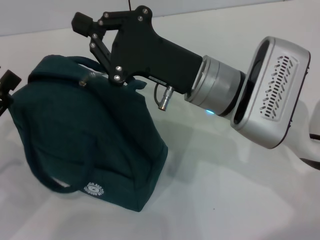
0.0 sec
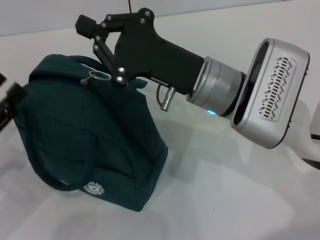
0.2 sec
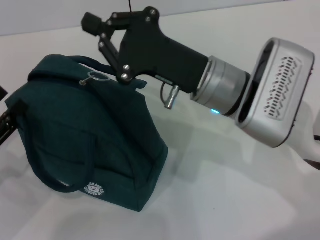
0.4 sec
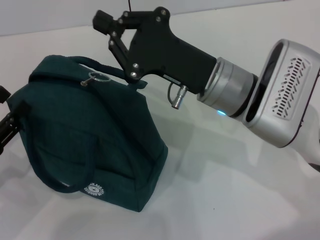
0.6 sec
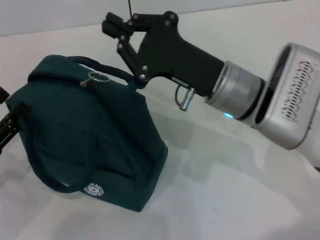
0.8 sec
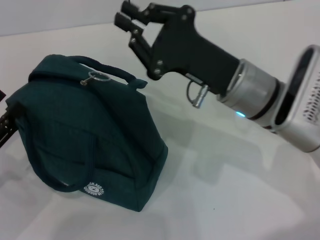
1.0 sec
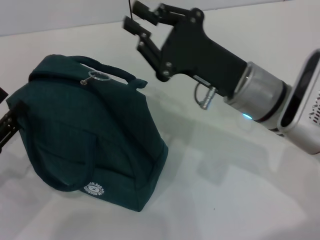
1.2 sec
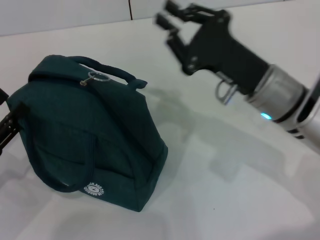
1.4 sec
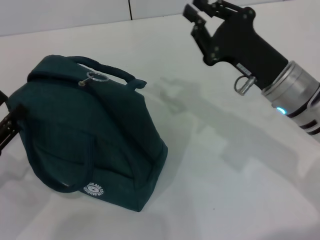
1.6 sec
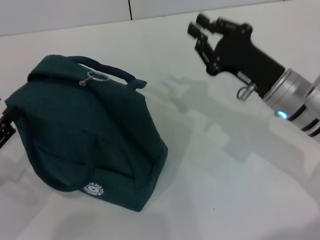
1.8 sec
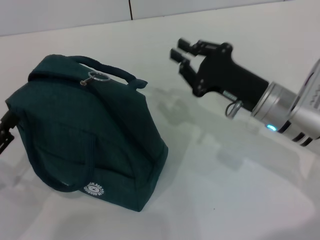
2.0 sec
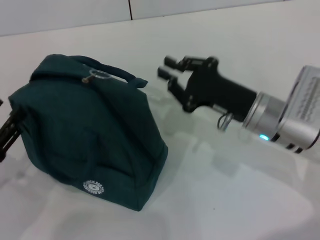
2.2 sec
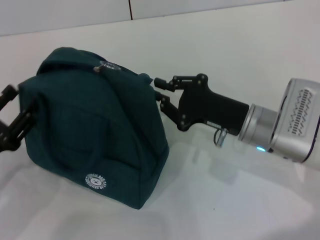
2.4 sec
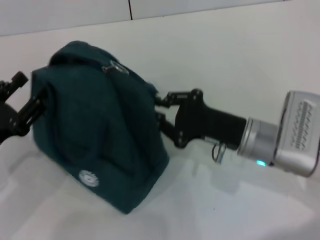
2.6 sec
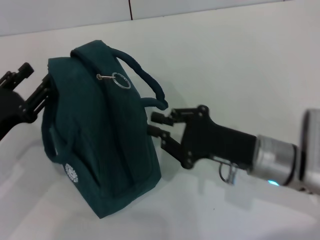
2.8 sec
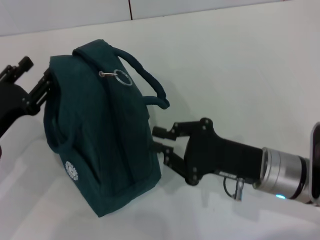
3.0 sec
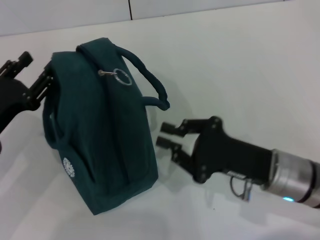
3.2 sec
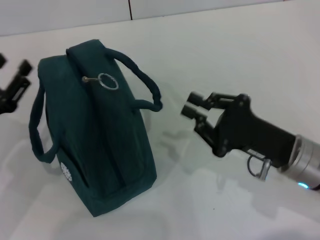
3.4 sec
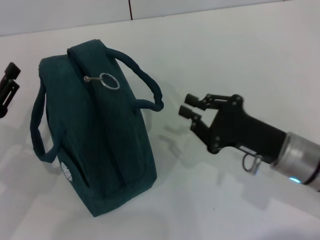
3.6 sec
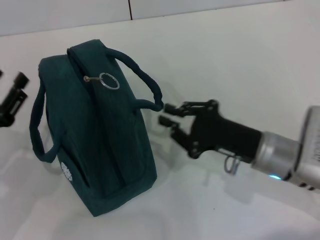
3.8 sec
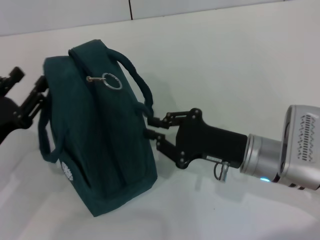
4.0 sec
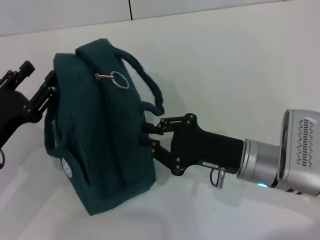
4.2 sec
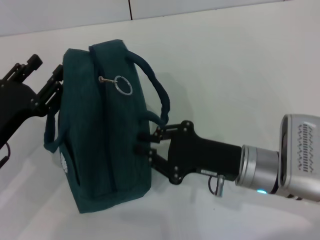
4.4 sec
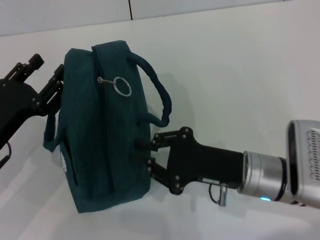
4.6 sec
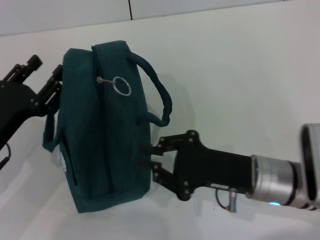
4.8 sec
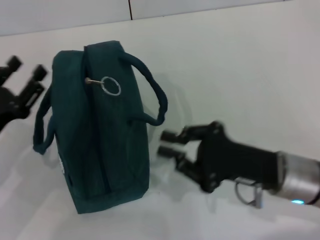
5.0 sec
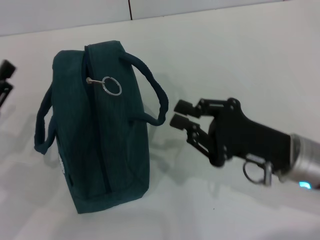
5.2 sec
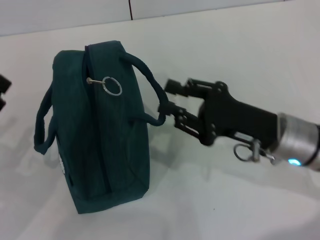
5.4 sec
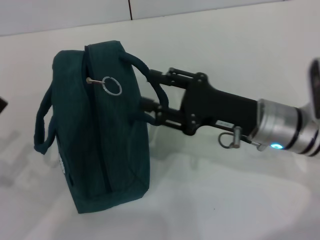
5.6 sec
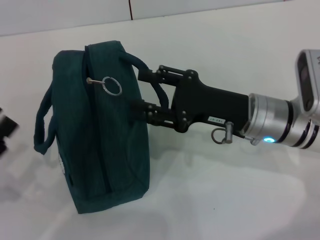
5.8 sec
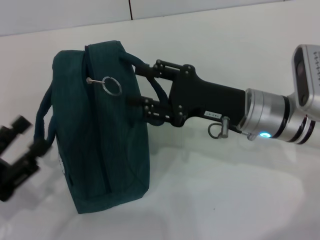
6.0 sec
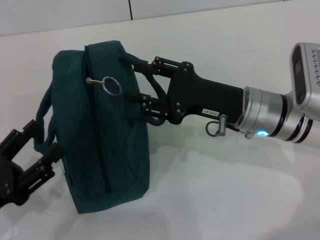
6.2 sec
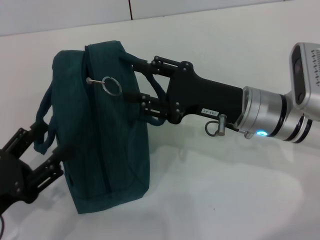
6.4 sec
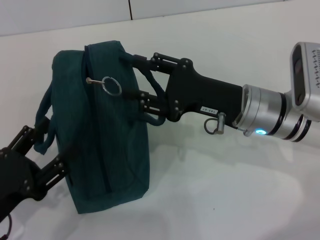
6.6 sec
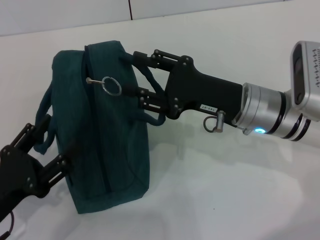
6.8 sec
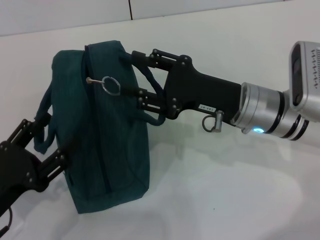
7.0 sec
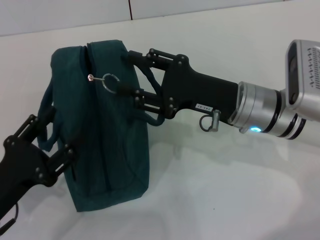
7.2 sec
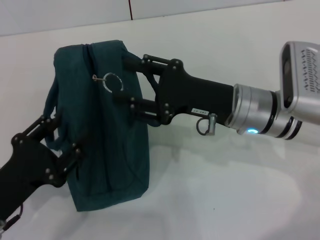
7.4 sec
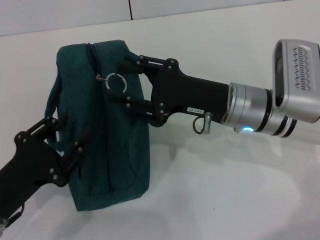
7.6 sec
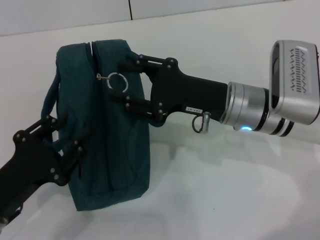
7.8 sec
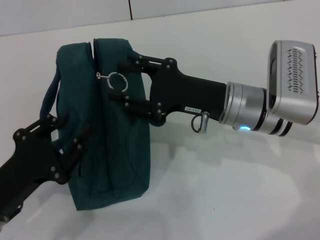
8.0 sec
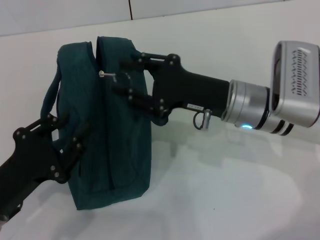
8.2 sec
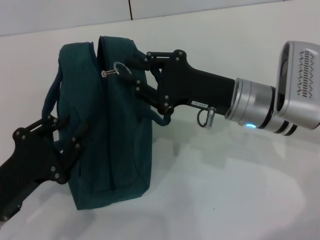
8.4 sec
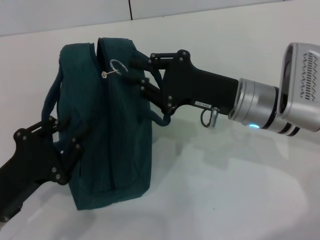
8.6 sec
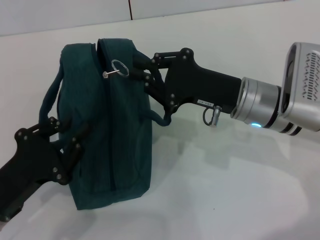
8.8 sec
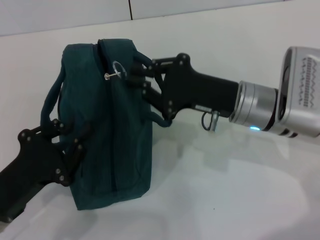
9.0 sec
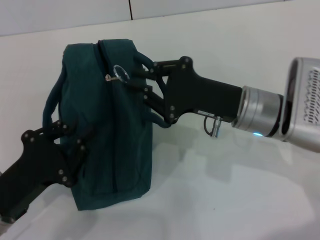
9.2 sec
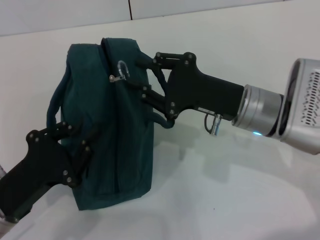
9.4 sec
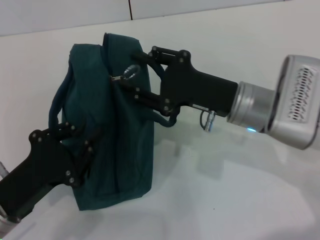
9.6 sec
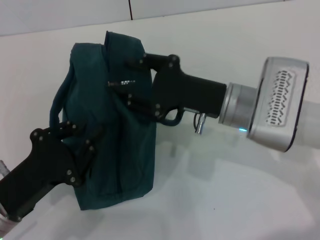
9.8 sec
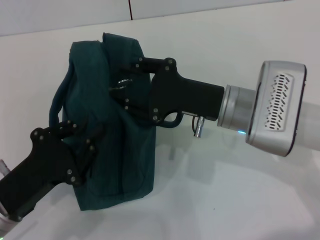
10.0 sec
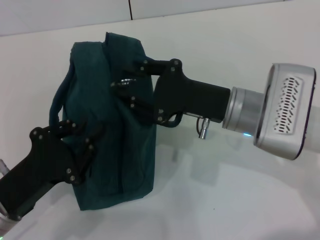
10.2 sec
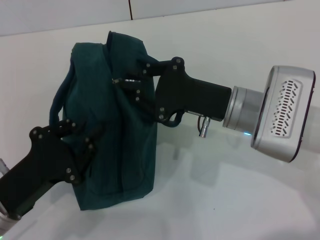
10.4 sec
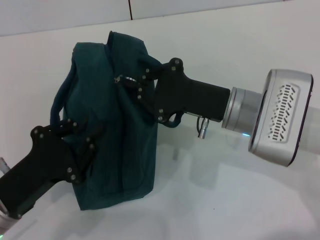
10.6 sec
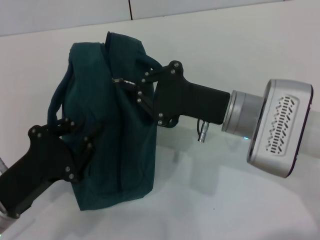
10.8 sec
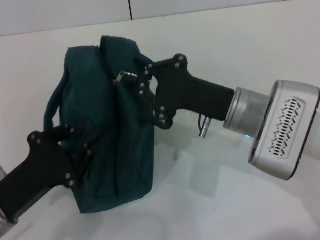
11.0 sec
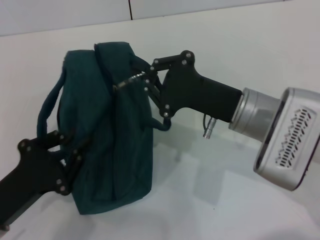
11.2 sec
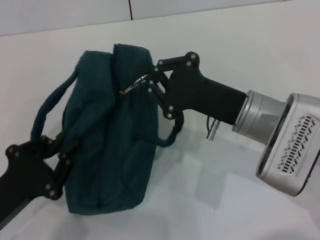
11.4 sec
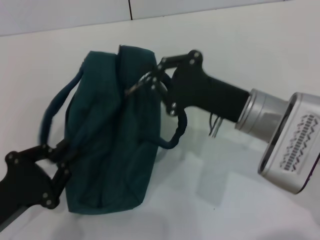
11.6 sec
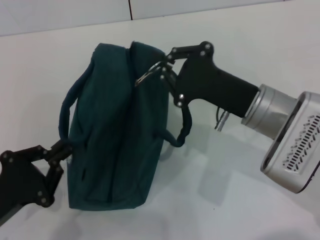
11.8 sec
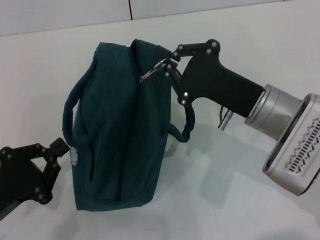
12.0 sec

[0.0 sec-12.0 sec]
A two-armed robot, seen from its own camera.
0.0 sec to 1.6 sec: The right gripper travels to the right by some 10 cm.
1.6 sec to 3.0 sec: The left gripper travels forward by some 5 cm. The right gripper is displaced backward and downward by some 10 cm.
3.0 sec to 4.4 sec: The grippers stay close to where they were, moving slightly.
4.4 sec to 6.0 sec: The right gripper travels forward by roughly 5 cm, and opens. The left gripper shifts roughly 10 cm backward.
6.0 sec to 7.6 sec: The left gripper changes place by roughly 5 cm.
7.6 sec to 9.0 sec: The left gripper closes its fingers, while the right gripper closes its fingers.
9.0 sec to 10.4 sec: The grippers make only small movements.
10.4 sec to 12.0 sec: The right gripper closes its fingers.

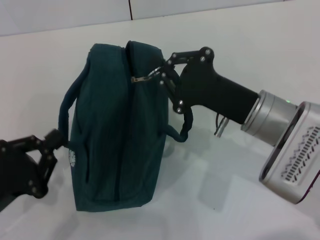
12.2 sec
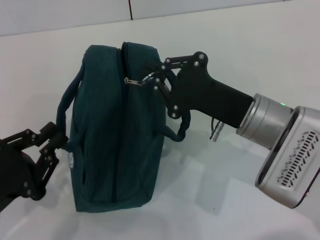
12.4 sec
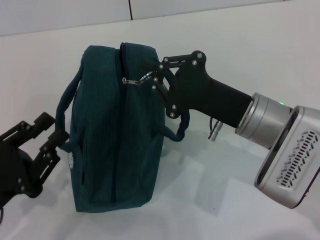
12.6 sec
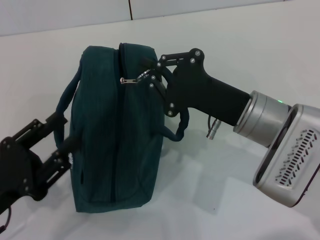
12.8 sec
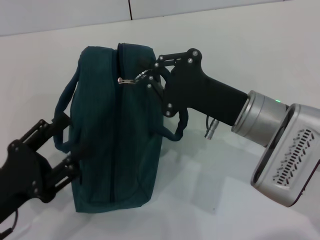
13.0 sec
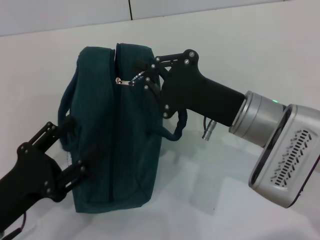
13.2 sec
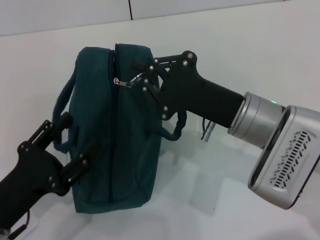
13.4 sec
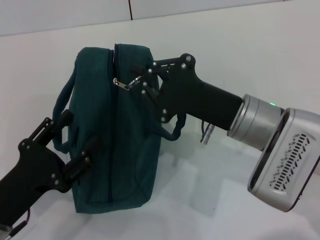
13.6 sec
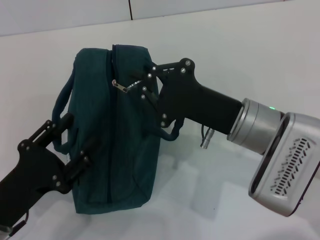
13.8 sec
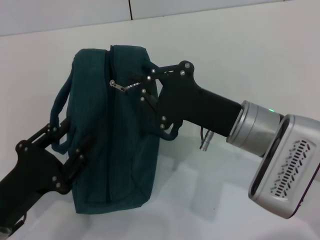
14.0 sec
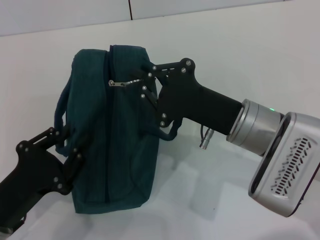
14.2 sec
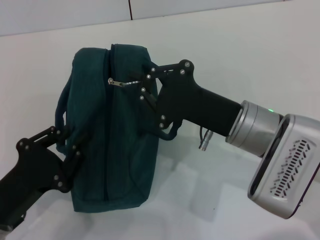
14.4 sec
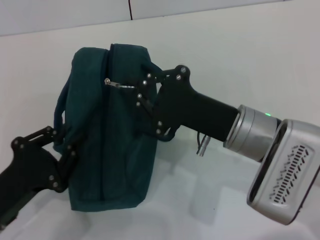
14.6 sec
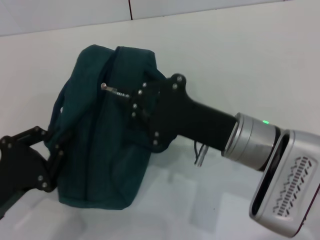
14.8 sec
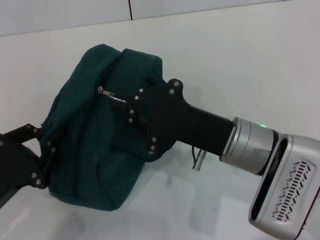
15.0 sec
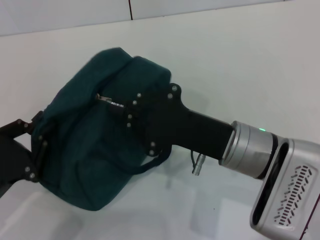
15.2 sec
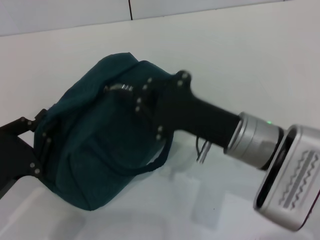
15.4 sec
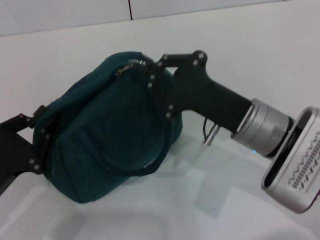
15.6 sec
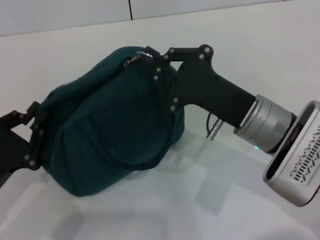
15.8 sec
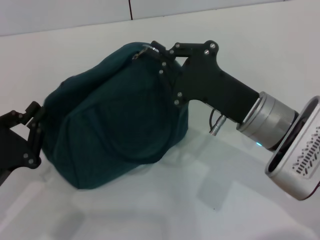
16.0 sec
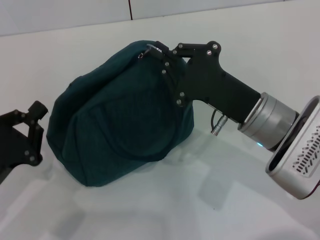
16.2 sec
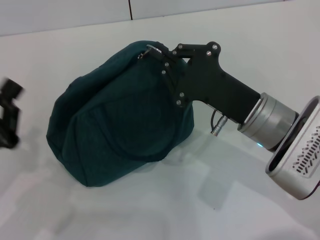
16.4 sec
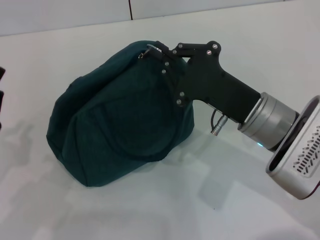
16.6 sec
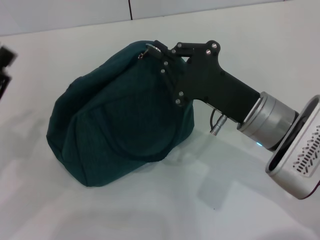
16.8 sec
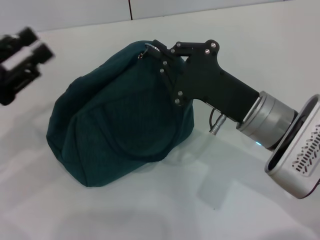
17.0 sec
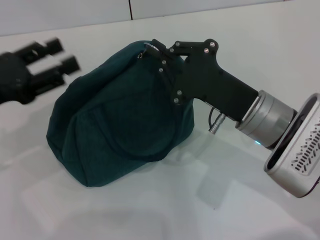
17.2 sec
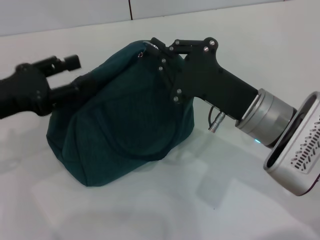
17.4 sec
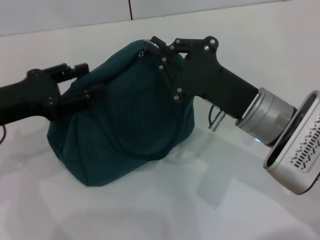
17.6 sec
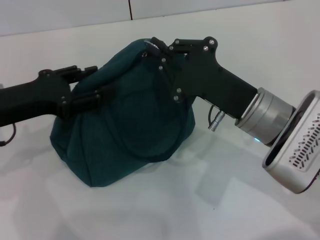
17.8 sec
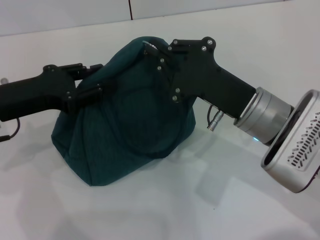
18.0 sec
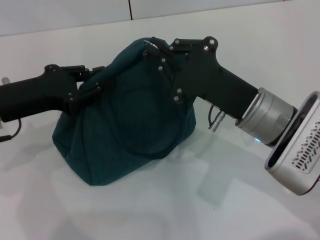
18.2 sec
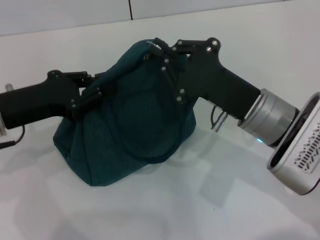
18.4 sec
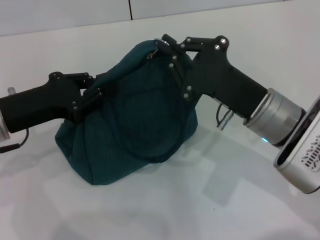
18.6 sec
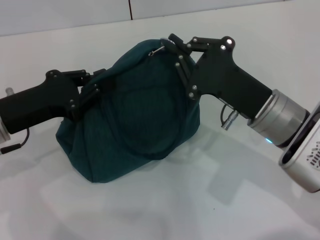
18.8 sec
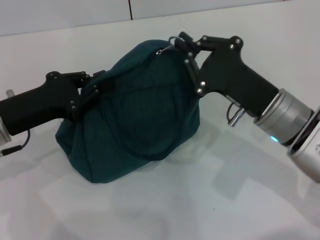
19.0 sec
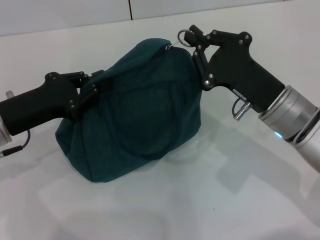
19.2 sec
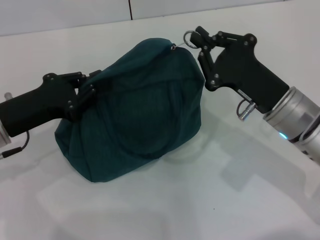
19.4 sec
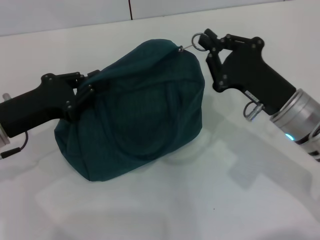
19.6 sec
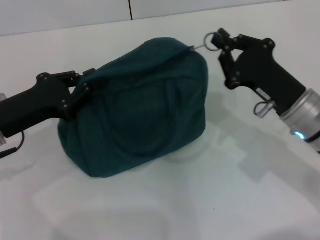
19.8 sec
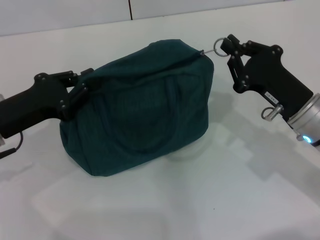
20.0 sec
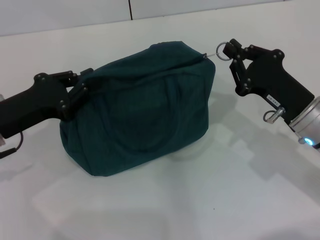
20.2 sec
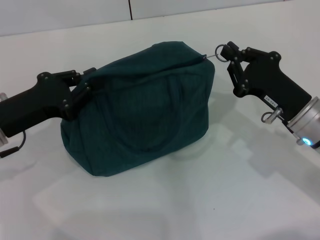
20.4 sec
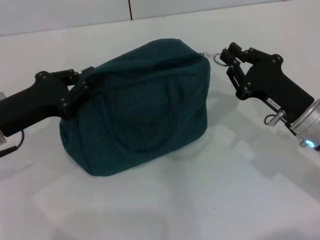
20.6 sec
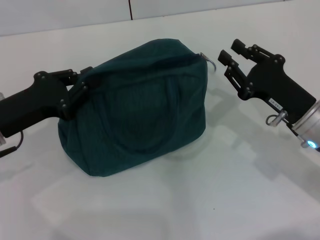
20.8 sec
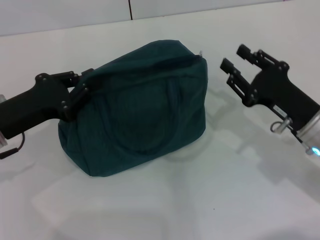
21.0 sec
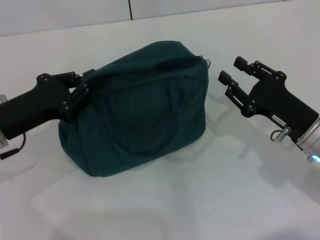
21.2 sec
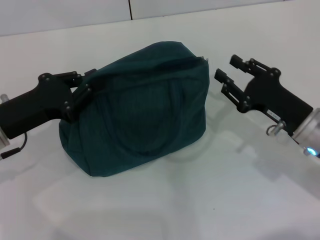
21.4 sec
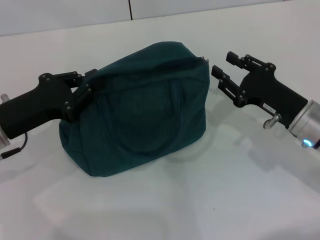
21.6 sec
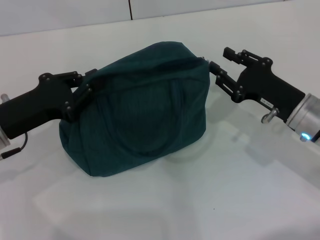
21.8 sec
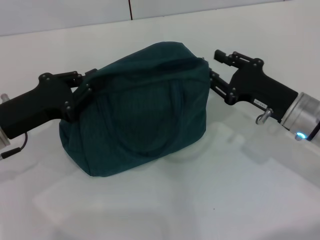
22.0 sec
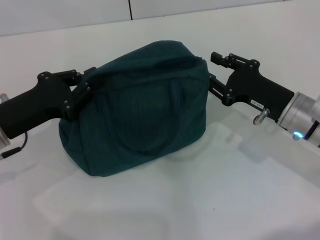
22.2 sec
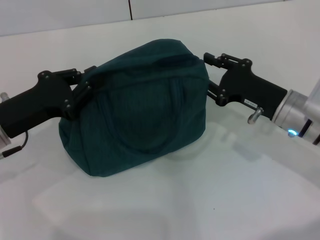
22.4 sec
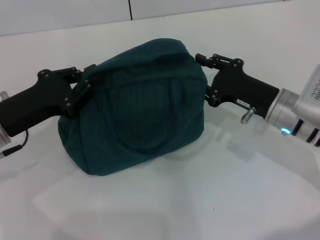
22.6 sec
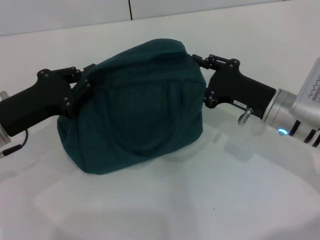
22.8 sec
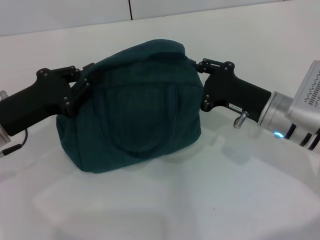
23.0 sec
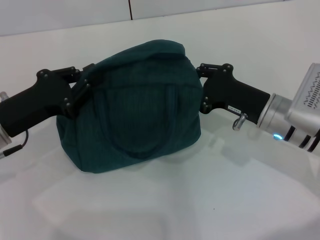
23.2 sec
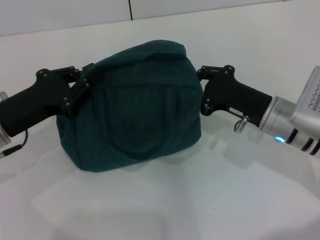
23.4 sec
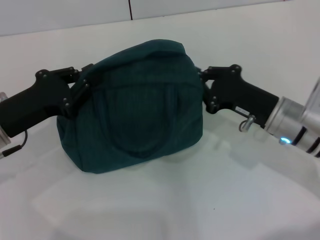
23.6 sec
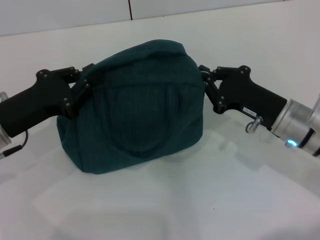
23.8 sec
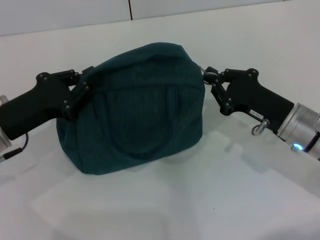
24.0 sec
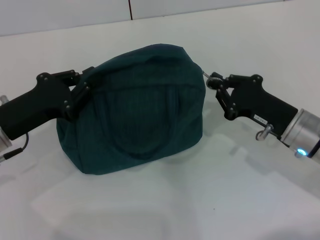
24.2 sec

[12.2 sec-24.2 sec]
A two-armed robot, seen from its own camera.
12.2 sec to 13.8 sec: The left gripper opens.
13.8 sec to 15.2 sec: The left gripper closes its fingers.
16.6 sec to 18.2 sec: The left gripper travels forward, upward and to the right by roughly 15 cm, and opens its fingers.
18.2 sec to 19.8 sec: The left gripper closes its fingers, while the right gripper shifts roughly 5 cm to the right.
19.8 sec to 21.2 sec: The right gripper opens.
21.2 sec to 22.6 sec: The right gripper heads forward, covering approximately 5 cm.
22.6 sec to 24.2 sec: The right gripper closes.
